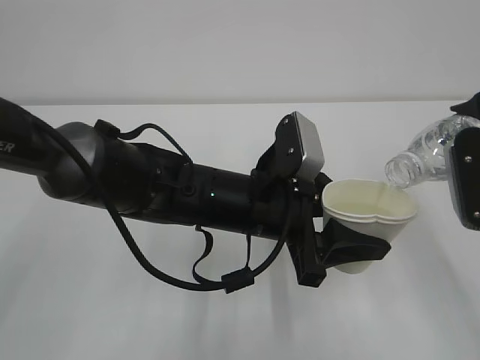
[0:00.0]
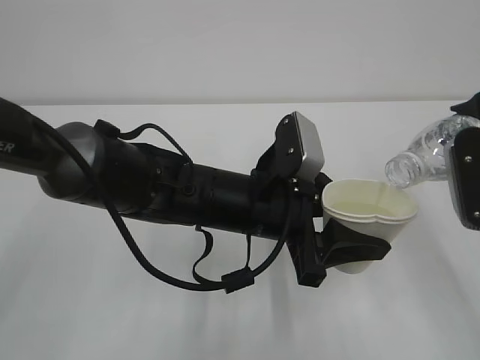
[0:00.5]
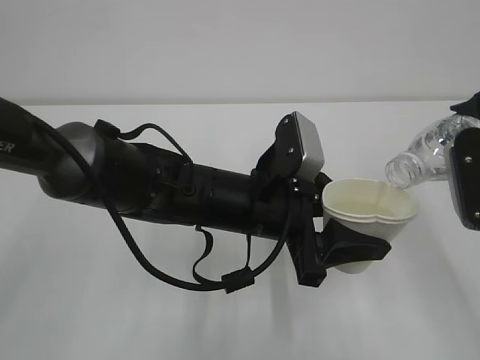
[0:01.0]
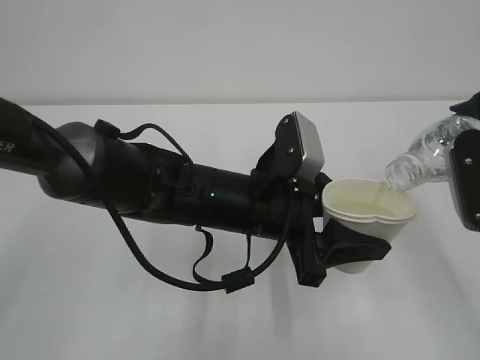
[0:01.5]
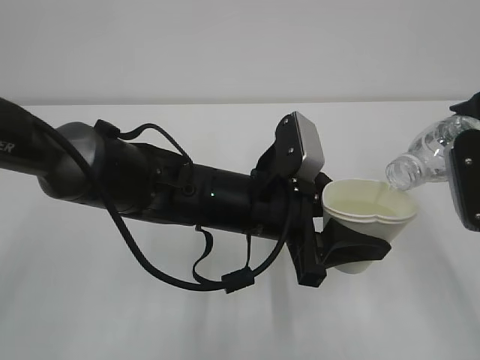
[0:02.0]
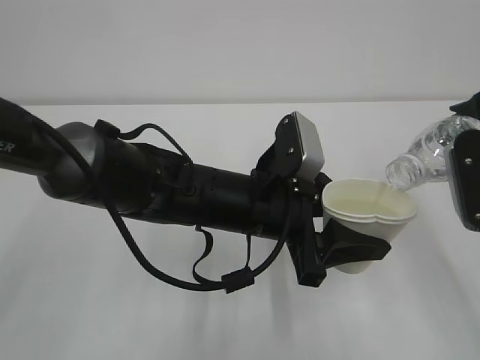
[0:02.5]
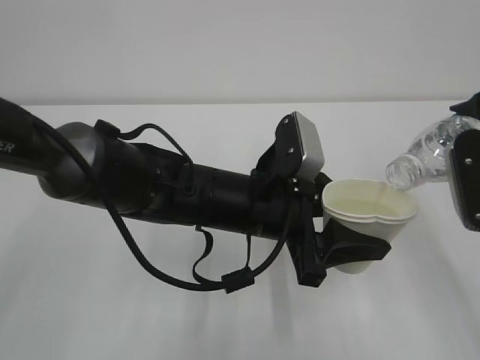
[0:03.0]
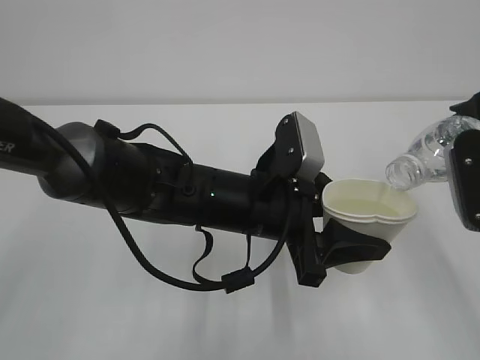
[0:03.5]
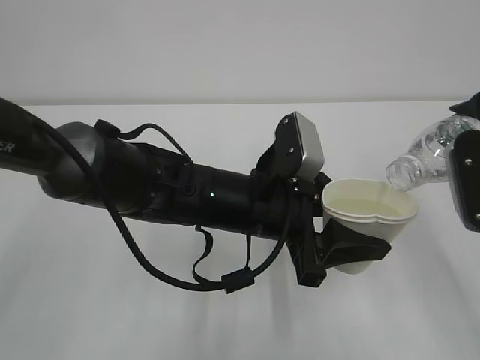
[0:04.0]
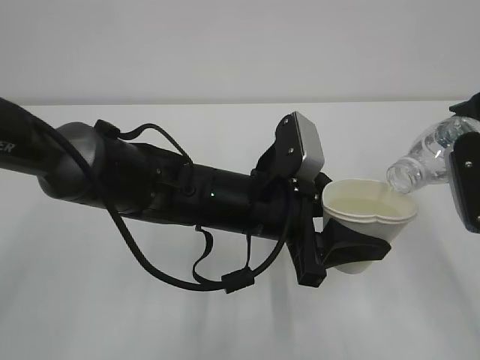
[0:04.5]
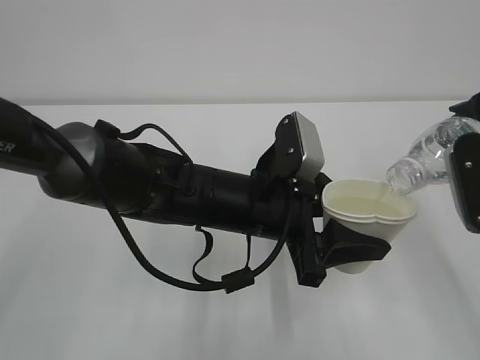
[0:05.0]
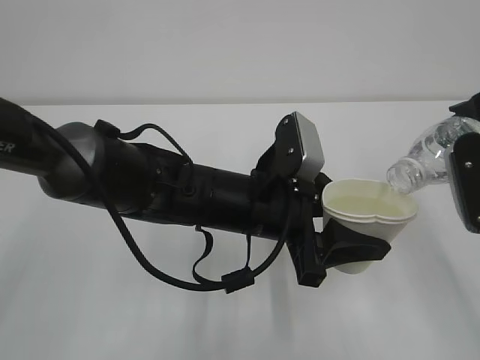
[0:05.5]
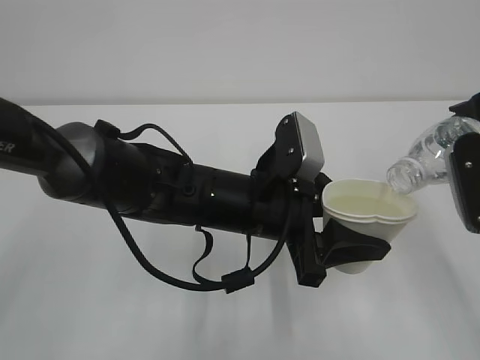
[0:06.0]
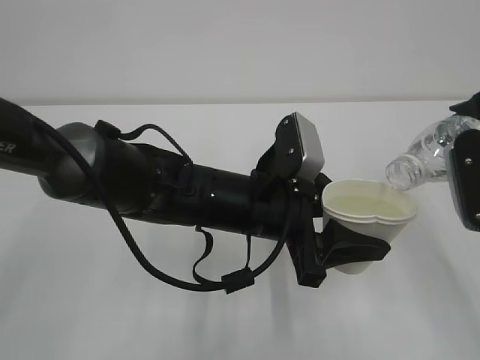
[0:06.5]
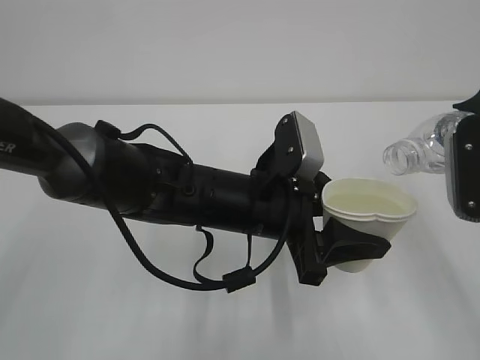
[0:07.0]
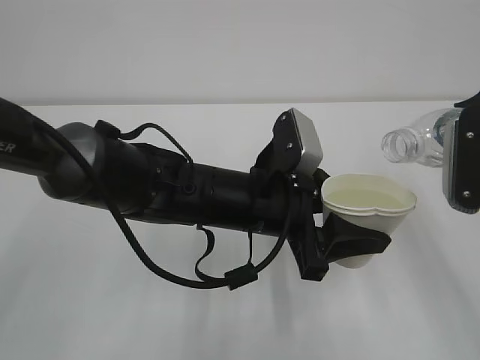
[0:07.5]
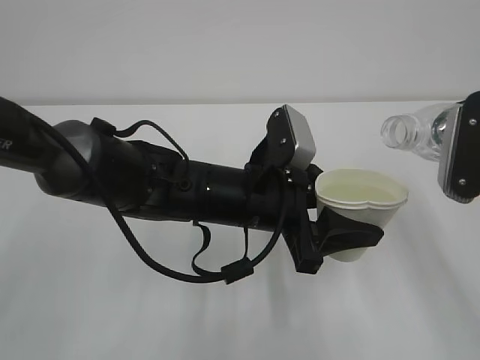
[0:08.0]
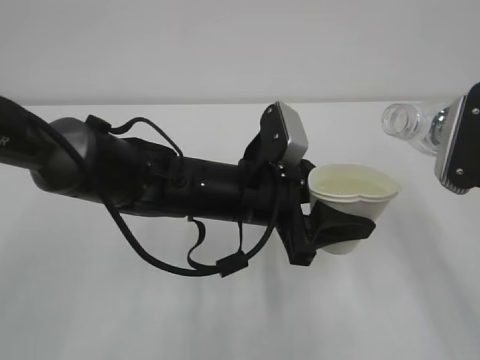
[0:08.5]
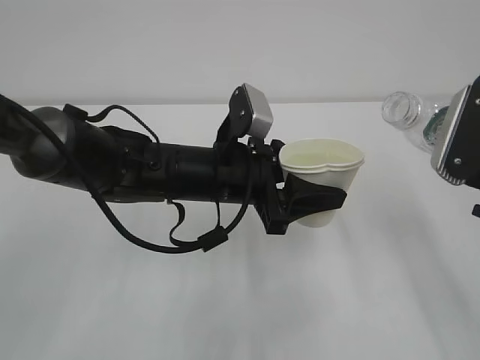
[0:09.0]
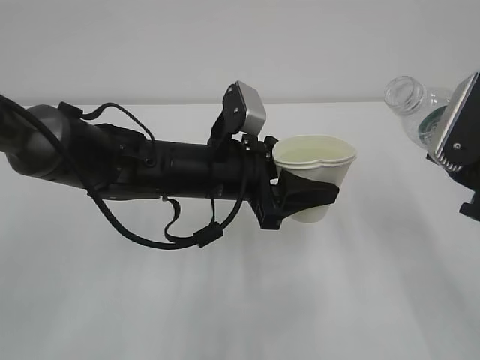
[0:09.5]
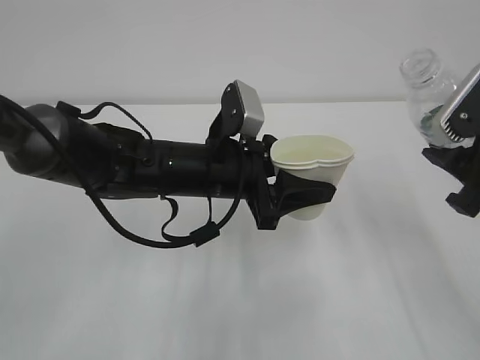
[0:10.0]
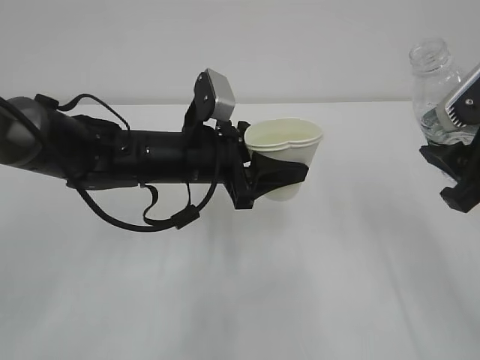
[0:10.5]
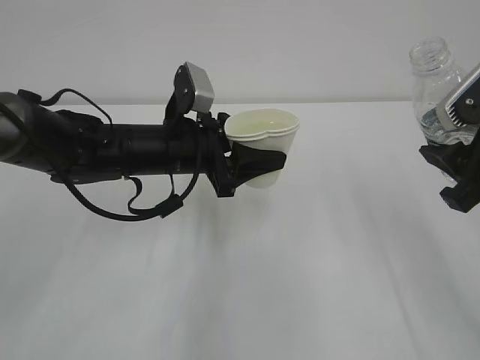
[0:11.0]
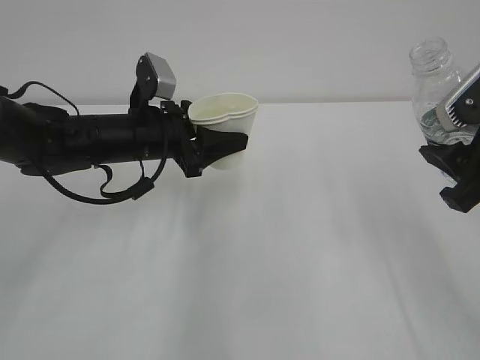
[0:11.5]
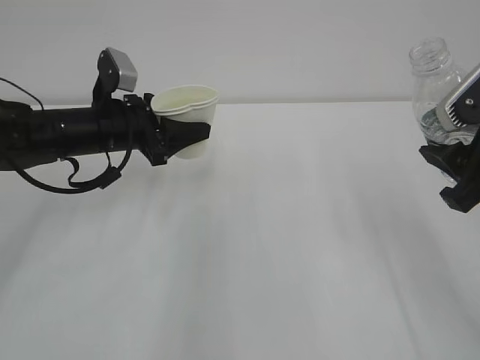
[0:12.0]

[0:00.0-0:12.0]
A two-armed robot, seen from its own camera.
0:00.0 to 0:06.0: The two grippers keep their place.
0:08.0 to 0:10.0: The left gripper ends up some 5 cm from where it was.
0:10.0 to 0:12.0: The left gripper heads to the left and forward, covering some 15 cm.

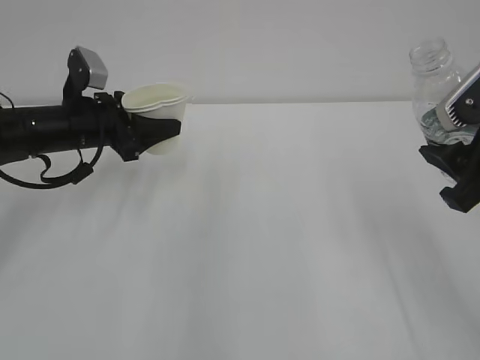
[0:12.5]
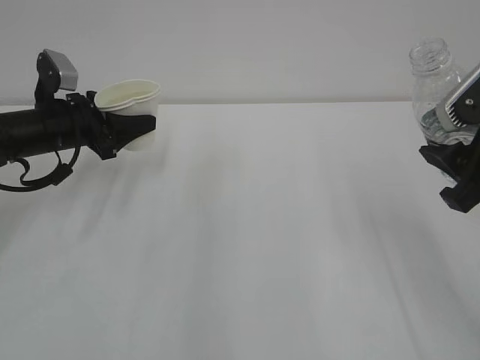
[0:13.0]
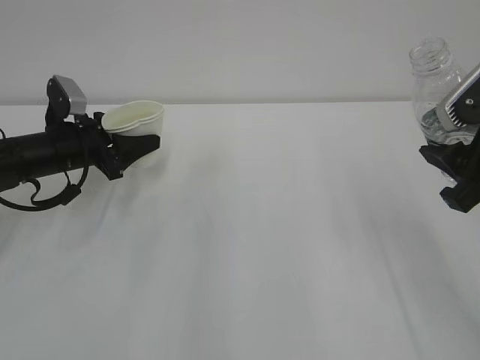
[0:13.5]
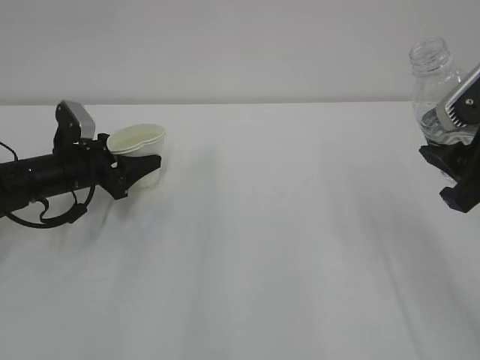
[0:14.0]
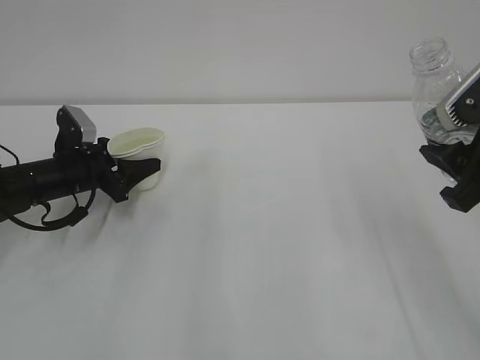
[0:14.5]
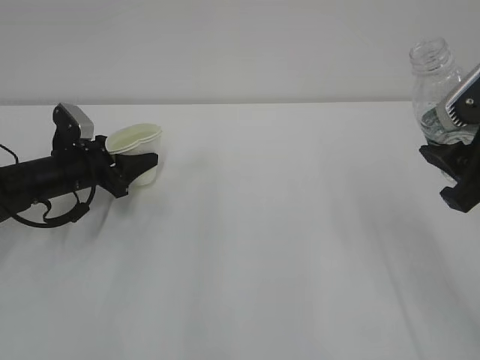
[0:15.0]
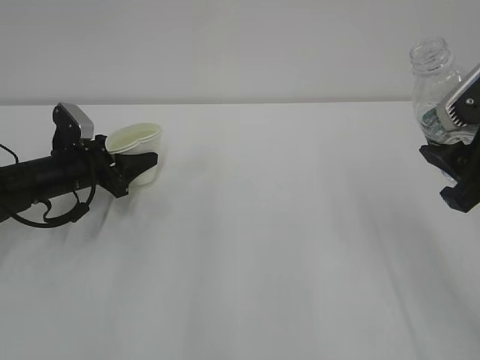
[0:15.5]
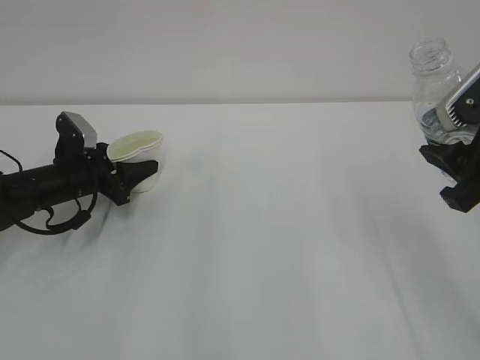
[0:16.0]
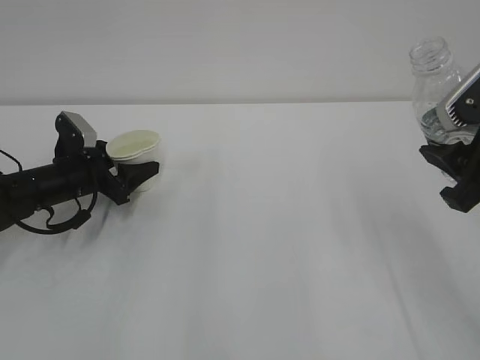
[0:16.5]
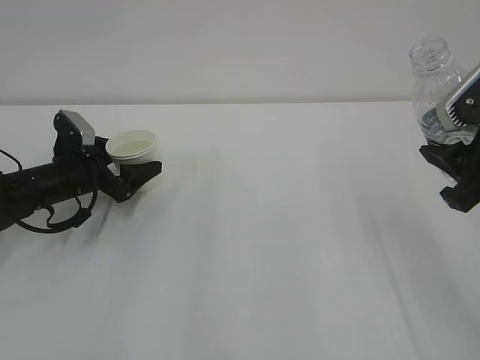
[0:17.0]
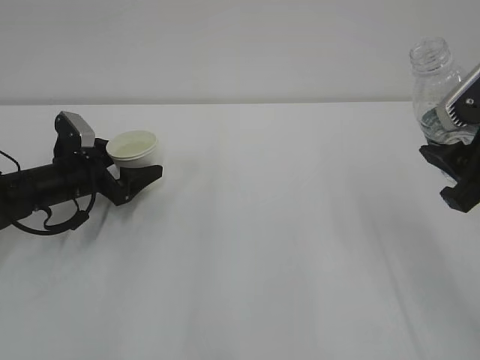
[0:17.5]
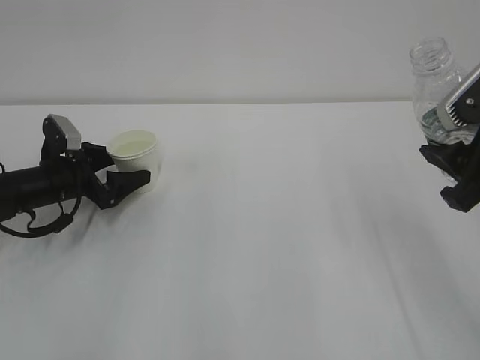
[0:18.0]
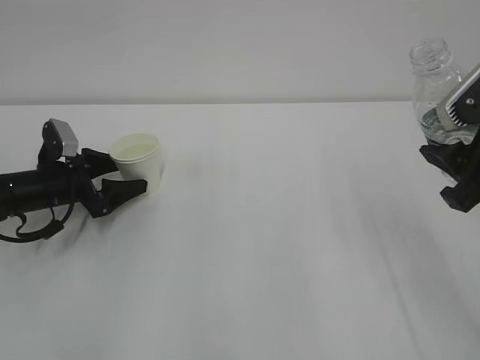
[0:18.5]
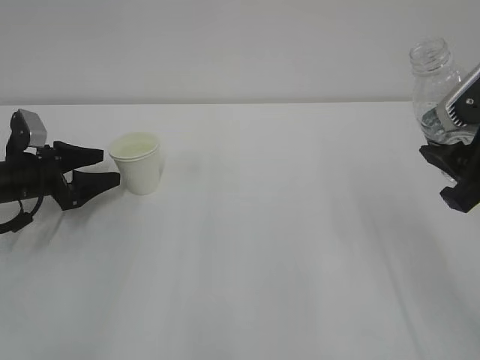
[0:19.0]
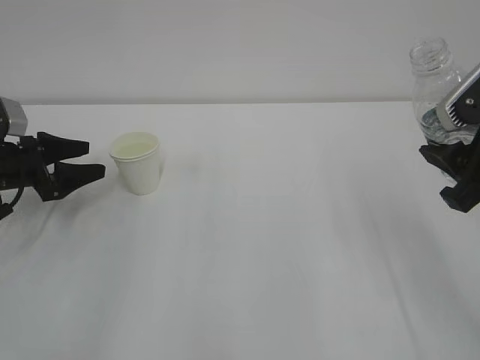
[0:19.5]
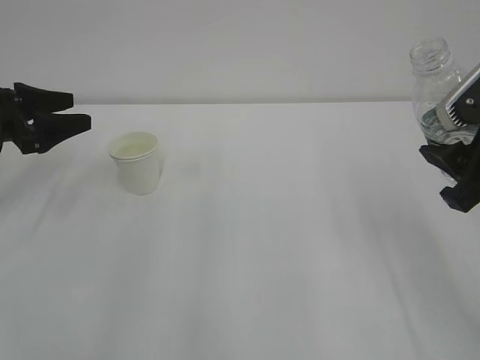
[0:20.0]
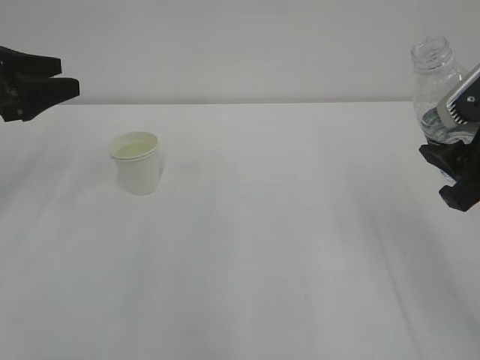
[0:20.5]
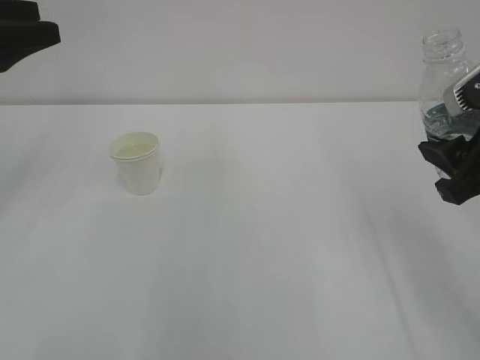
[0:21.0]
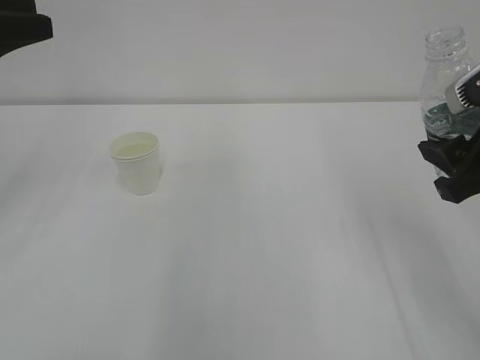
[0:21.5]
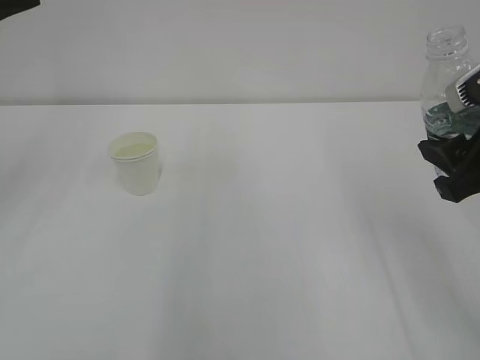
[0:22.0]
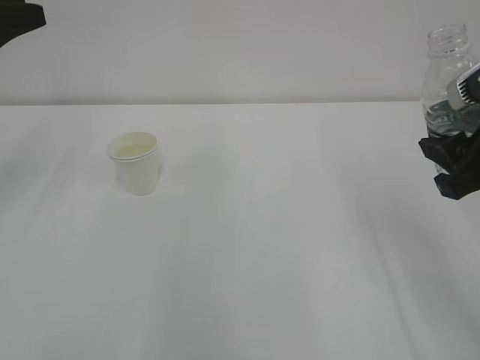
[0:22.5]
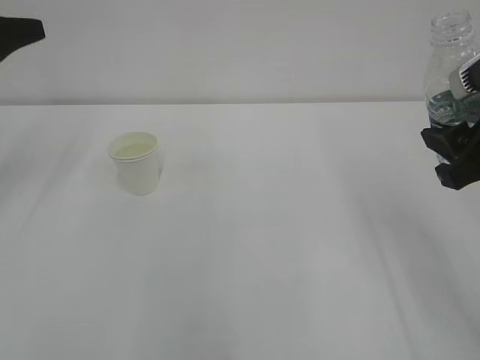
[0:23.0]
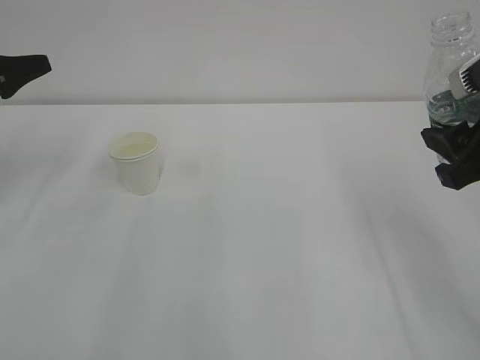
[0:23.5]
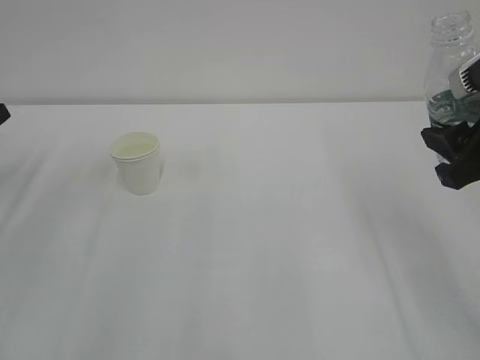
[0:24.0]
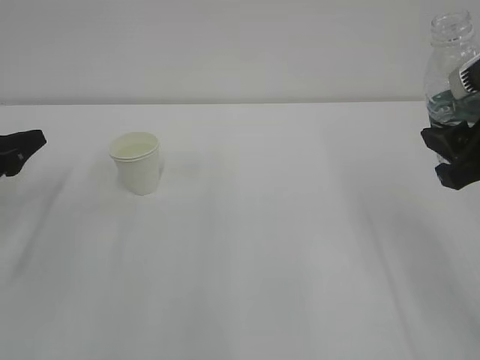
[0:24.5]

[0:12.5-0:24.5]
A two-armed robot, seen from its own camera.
0:12.5 to 0:14.5: The left gripper moves downward, roughly 10 cm.
0:14.5 to 0:16.5: The two grippers keep their place.
0:16.5 to 0:18.5: The left gripper opens.
0:18.5 to 0:20.5: The left gripper shifts about 15 cm upward.
0:20.5 to 0:22.5: The left gripper travels upward by about 10 cm, and closes its fingers.
0:22.5 to 0:24.5: The left gripper moves downward, approximately 15 cm.

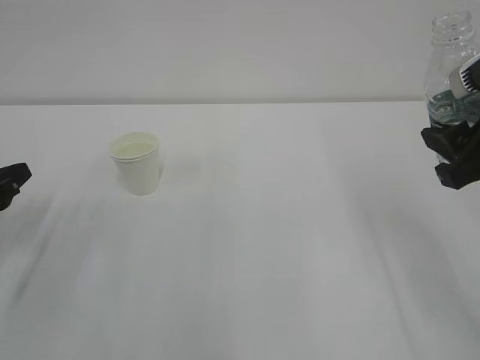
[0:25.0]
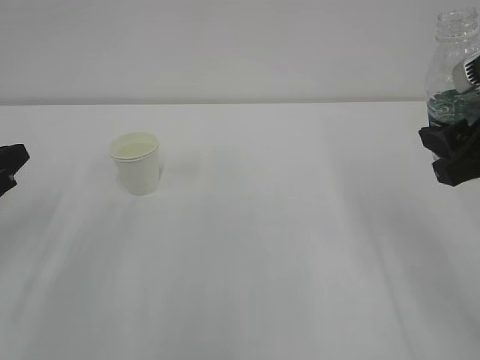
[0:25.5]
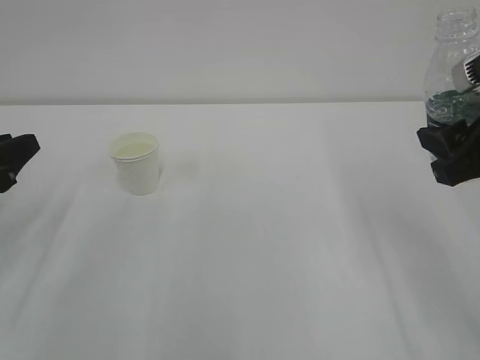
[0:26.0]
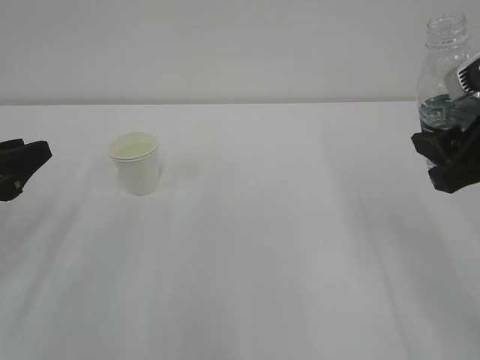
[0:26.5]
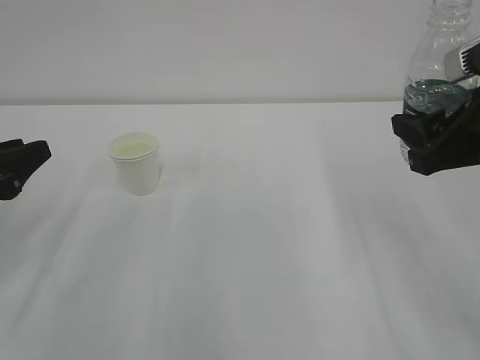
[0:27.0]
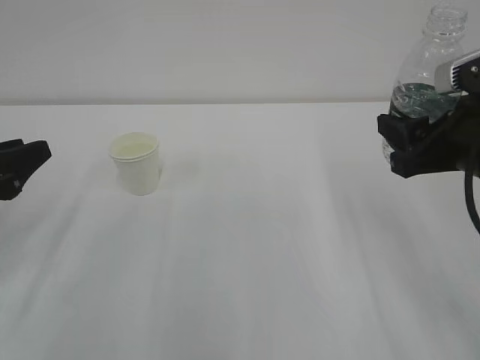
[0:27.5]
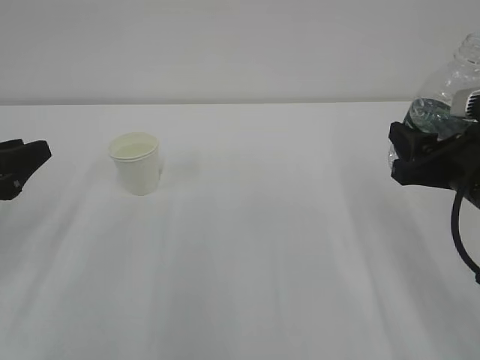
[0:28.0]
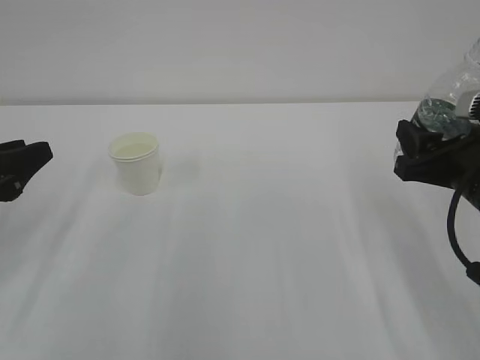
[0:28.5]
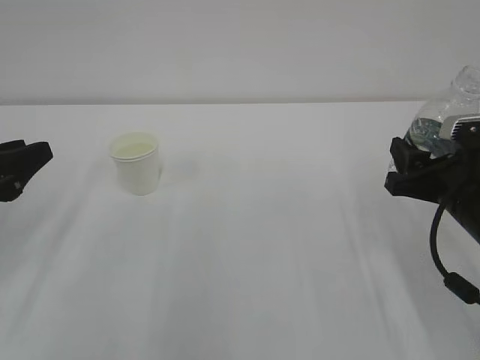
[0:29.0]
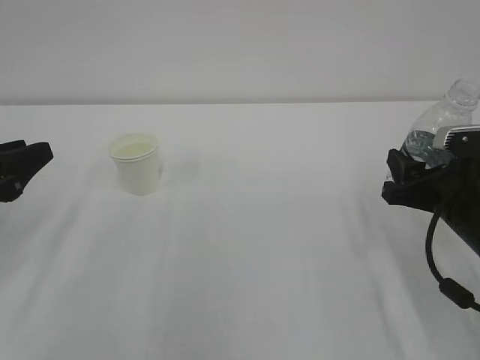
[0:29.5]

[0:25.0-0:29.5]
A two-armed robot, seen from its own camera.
0:25.0 to 0:27.0: The left gripper travels upward by roughly 5 cm.
0:27.0 to 0:29.5: The right gripper heads downward, covering approximately 10 cm.
